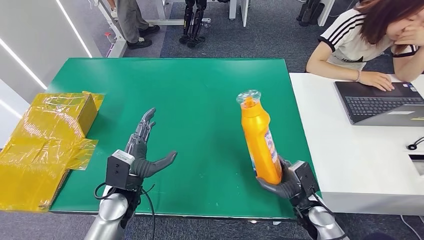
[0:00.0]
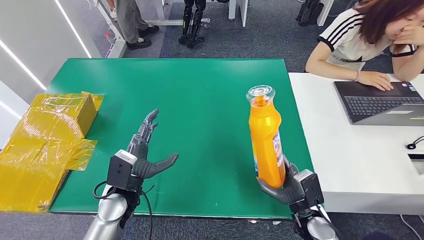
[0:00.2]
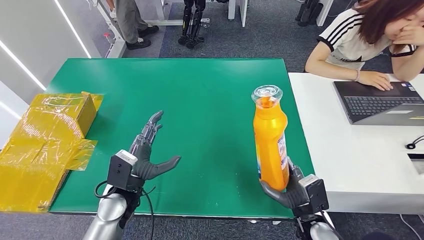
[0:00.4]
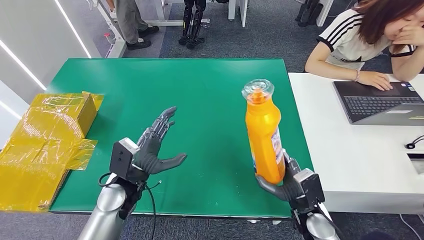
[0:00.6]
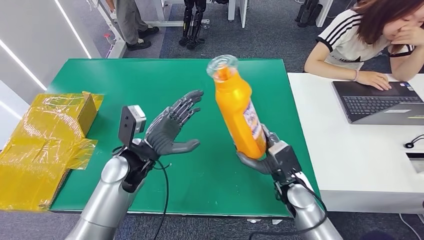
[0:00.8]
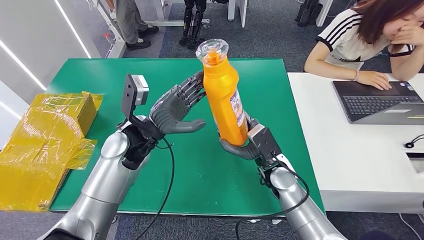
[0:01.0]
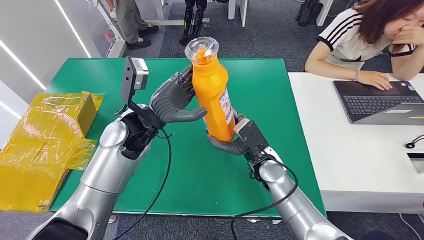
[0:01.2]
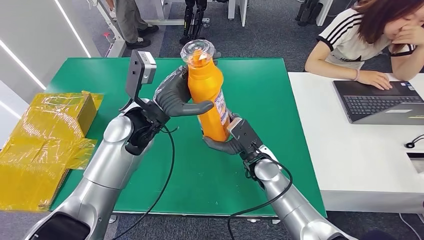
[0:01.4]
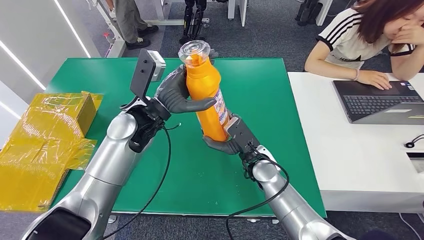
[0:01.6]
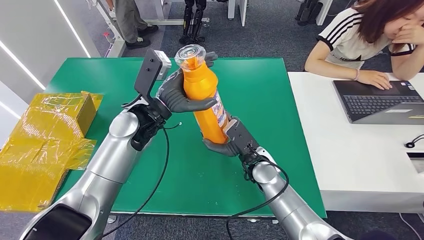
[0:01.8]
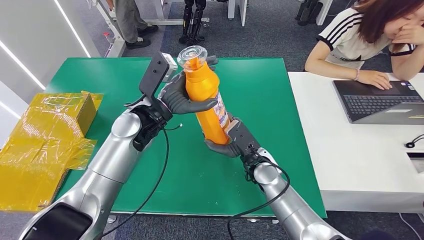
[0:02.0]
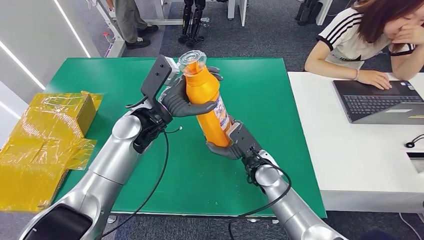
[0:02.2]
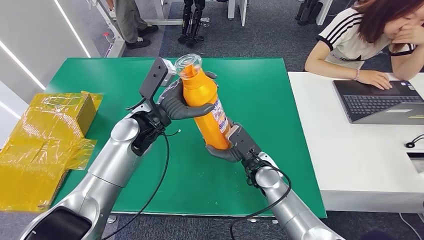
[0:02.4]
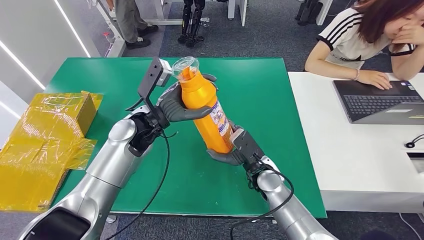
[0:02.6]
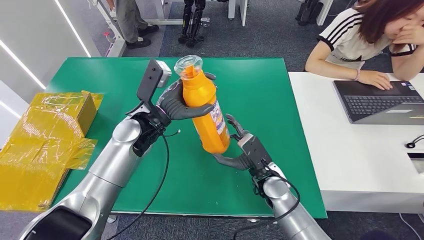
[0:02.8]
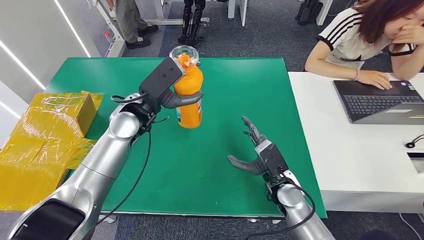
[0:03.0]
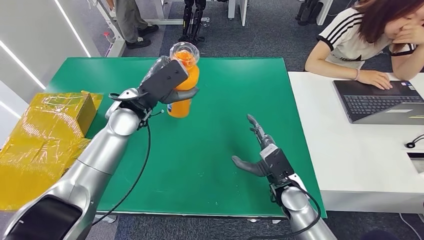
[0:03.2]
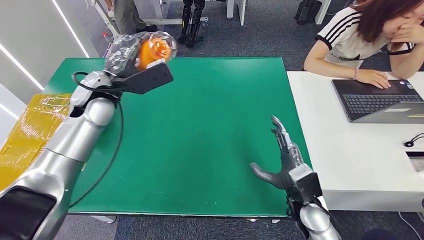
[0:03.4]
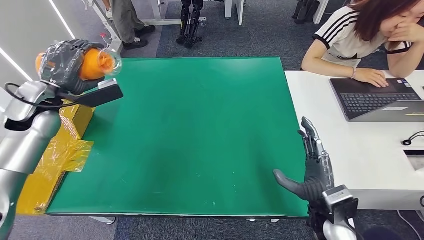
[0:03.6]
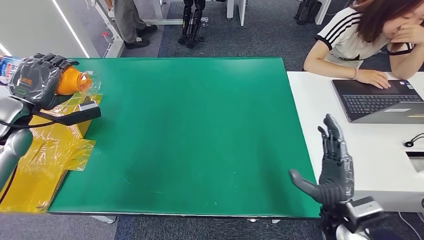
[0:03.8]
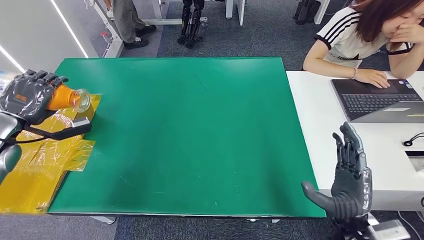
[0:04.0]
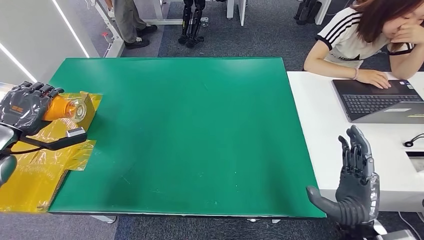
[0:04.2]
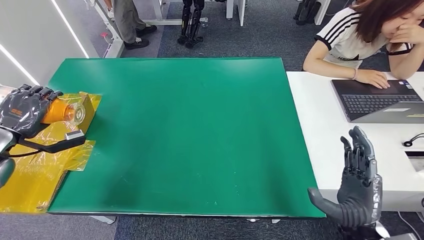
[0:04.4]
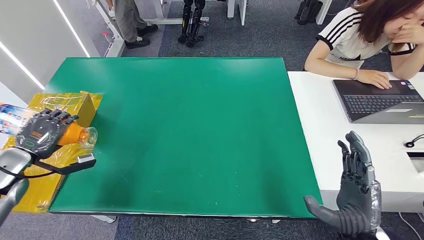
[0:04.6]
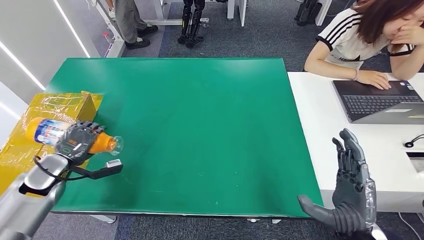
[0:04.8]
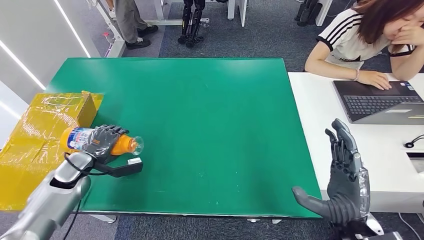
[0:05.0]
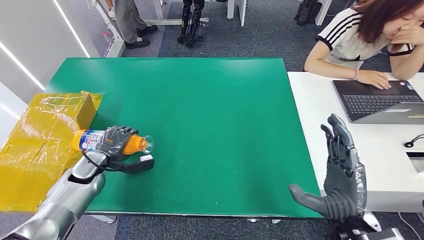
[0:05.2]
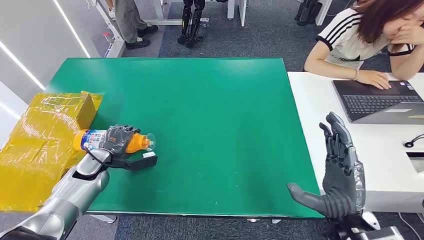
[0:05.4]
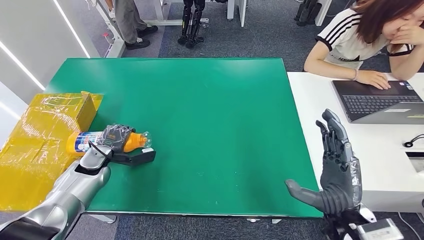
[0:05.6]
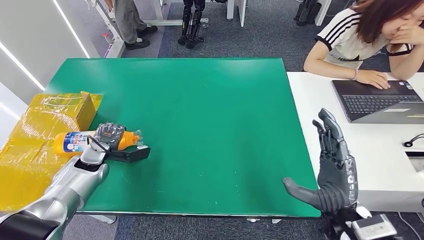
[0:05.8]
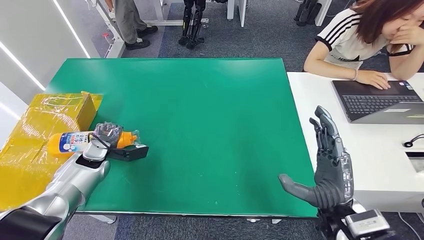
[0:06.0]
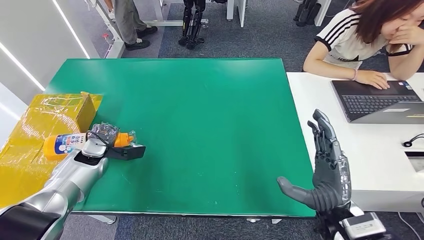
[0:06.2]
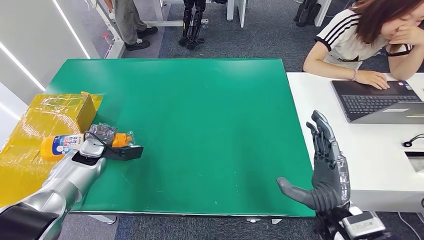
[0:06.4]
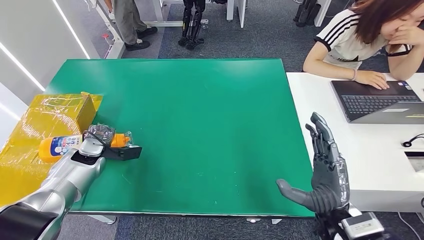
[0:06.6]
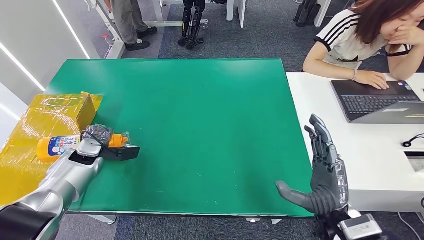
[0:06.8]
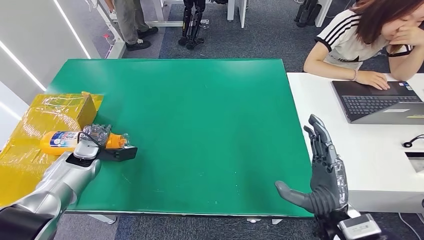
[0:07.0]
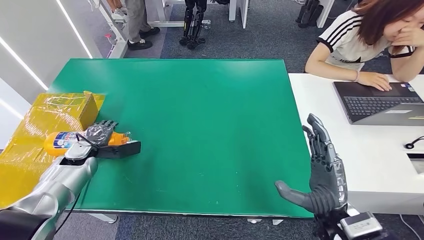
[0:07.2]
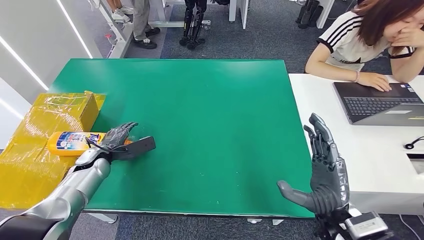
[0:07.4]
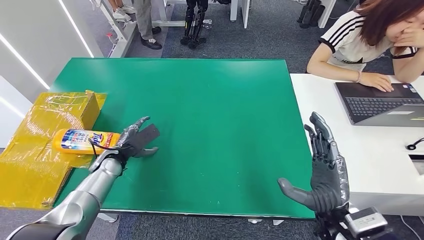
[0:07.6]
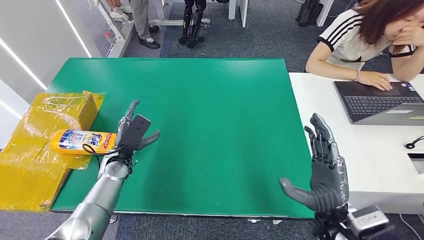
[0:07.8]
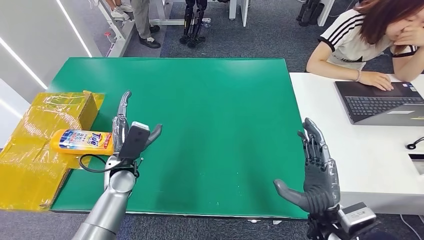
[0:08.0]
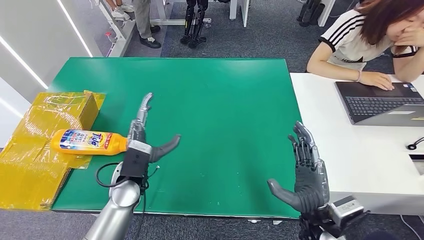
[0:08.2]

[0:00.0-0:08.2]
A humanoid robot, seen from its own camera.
Step, 0:01.8 to 0:08.2: Turn the bottle to the front side.
0:01.6 to 0:03.2: The left hand shifts by approximately 5 cm, while the right hand heads to the right and backward, covering approximately 10 cm.
0:05.0 to 0:06.6: The left hand moves forward, about 5 cm.
